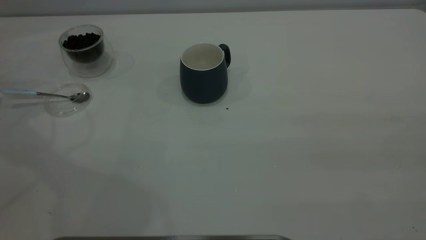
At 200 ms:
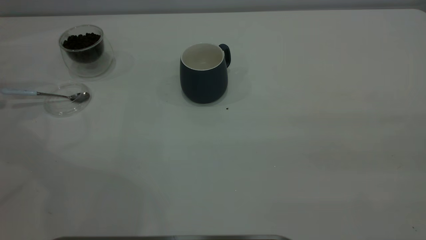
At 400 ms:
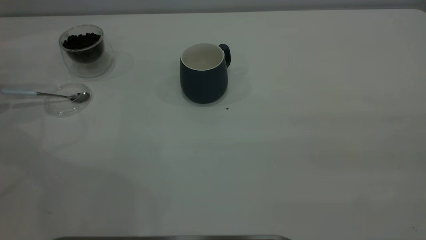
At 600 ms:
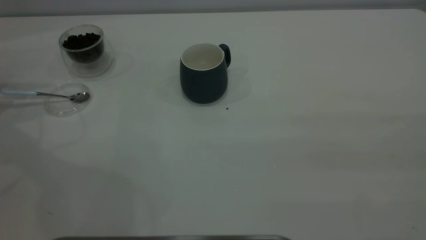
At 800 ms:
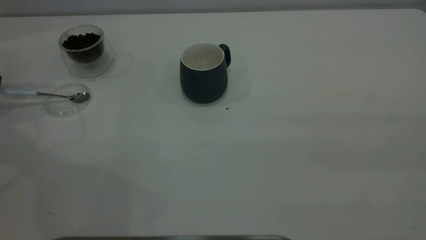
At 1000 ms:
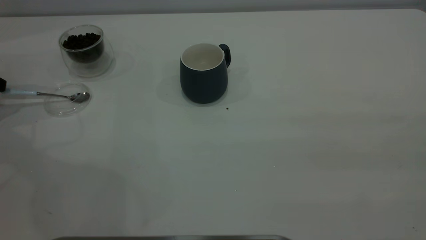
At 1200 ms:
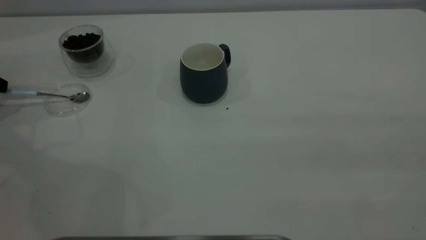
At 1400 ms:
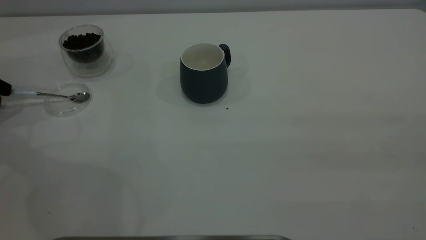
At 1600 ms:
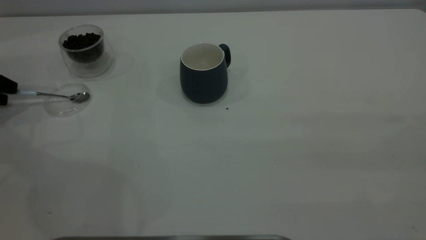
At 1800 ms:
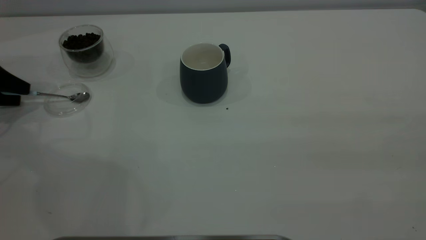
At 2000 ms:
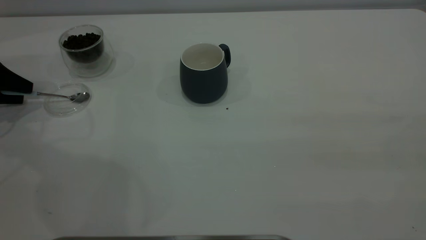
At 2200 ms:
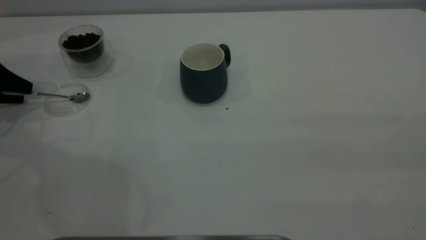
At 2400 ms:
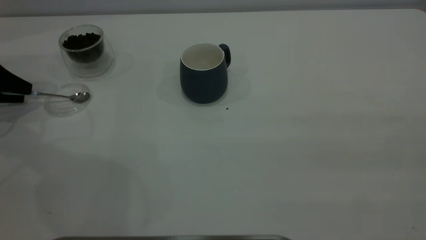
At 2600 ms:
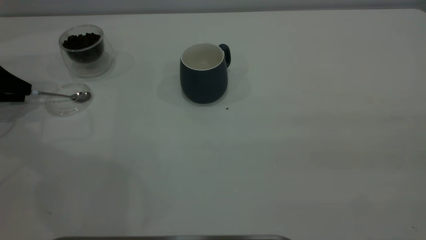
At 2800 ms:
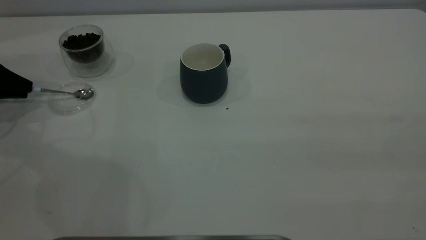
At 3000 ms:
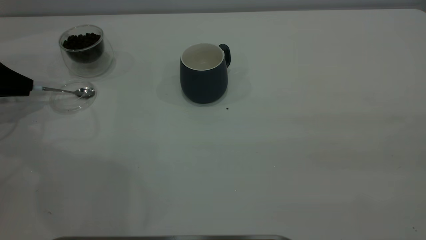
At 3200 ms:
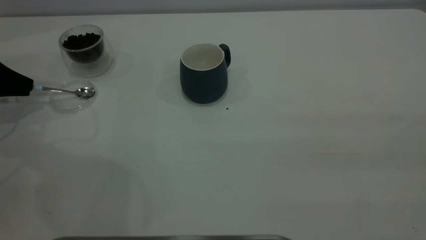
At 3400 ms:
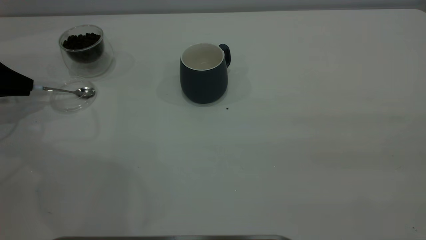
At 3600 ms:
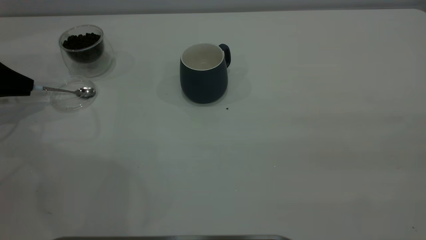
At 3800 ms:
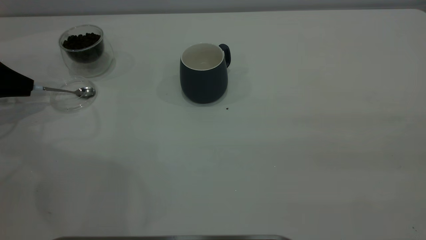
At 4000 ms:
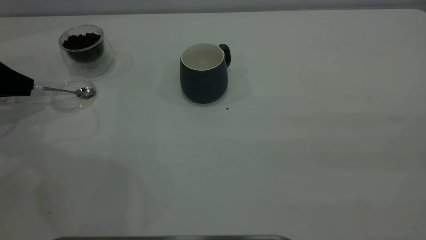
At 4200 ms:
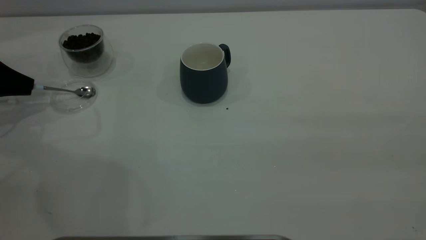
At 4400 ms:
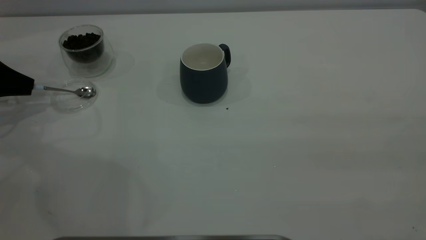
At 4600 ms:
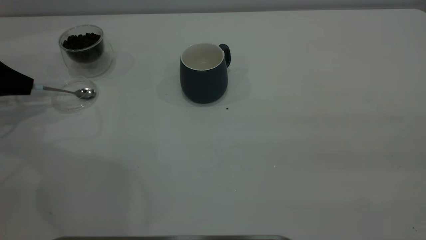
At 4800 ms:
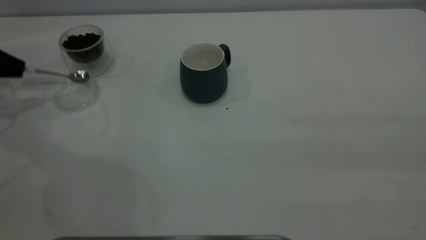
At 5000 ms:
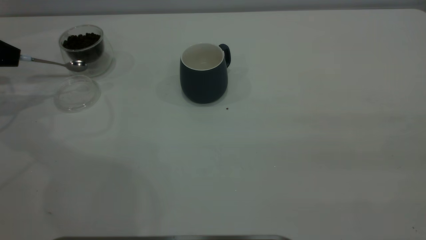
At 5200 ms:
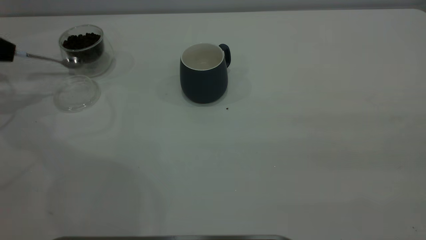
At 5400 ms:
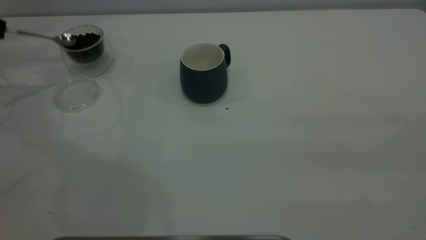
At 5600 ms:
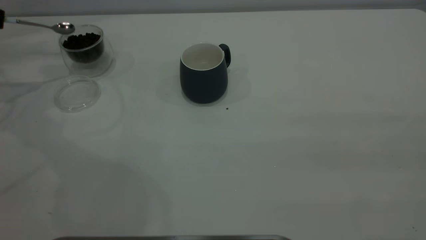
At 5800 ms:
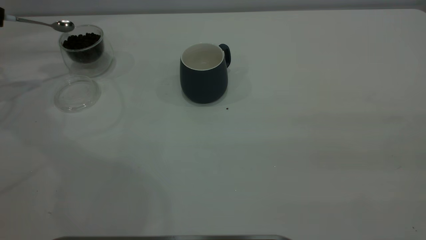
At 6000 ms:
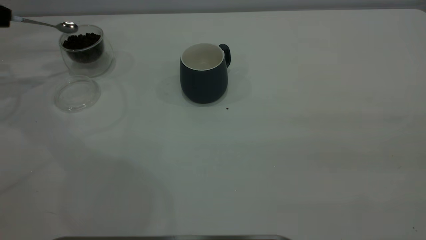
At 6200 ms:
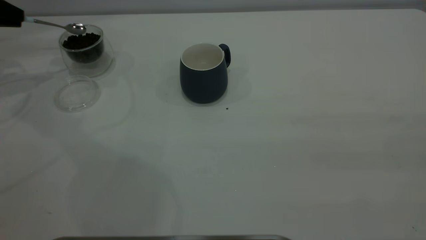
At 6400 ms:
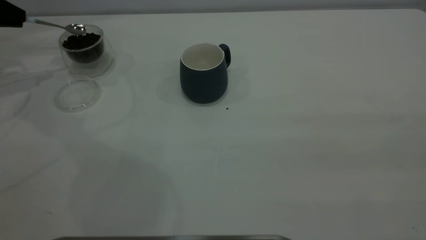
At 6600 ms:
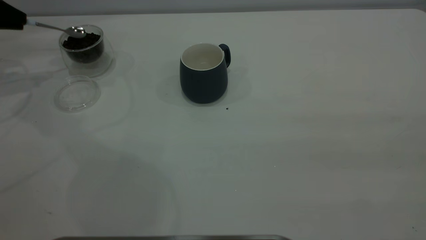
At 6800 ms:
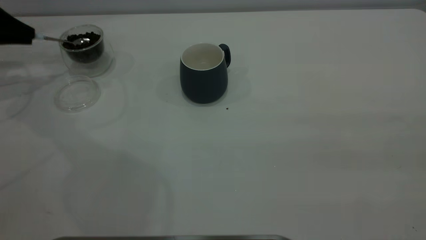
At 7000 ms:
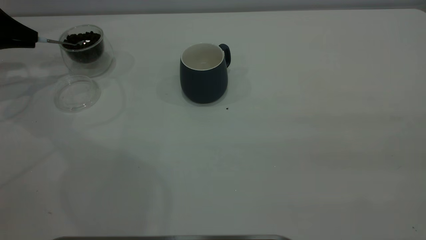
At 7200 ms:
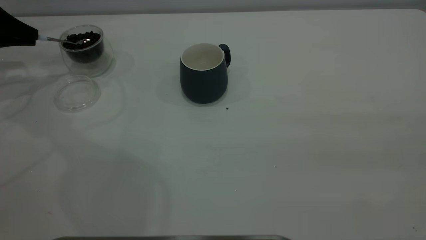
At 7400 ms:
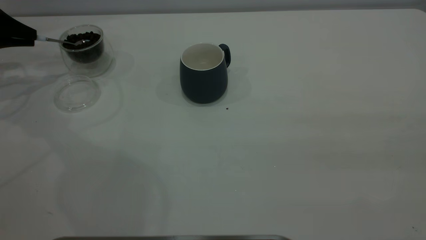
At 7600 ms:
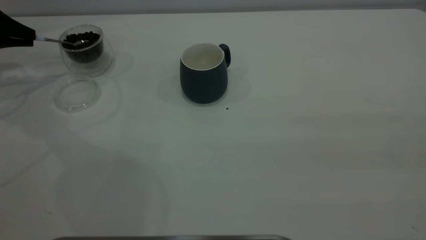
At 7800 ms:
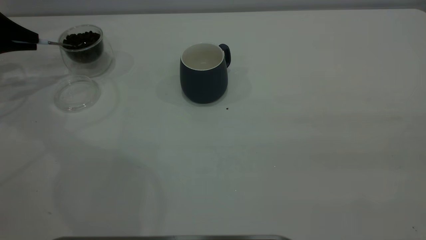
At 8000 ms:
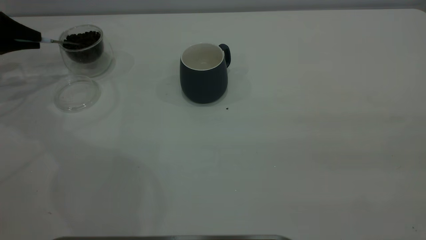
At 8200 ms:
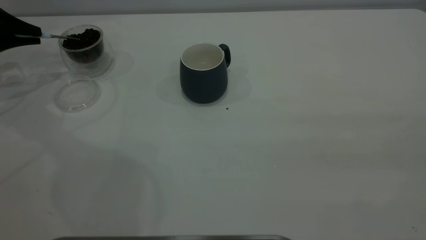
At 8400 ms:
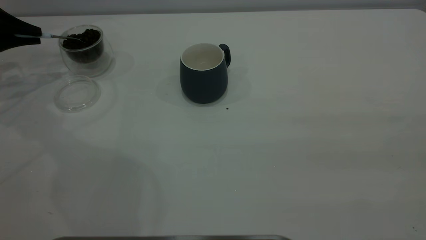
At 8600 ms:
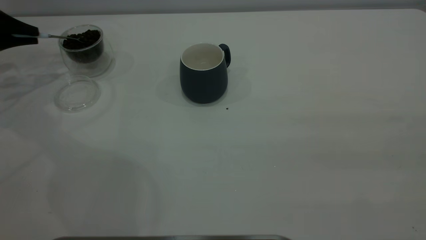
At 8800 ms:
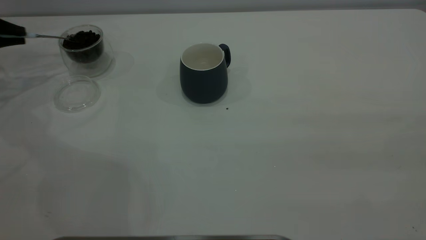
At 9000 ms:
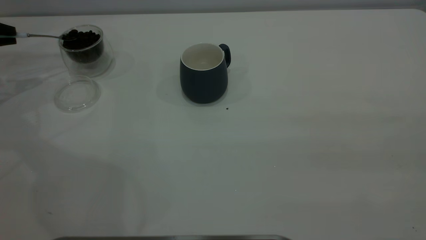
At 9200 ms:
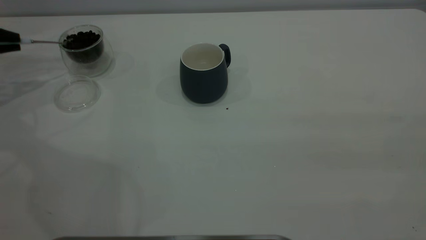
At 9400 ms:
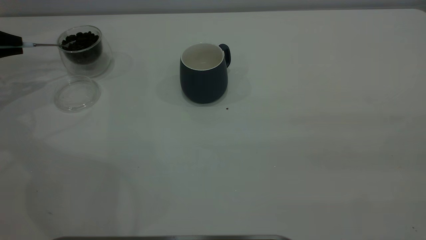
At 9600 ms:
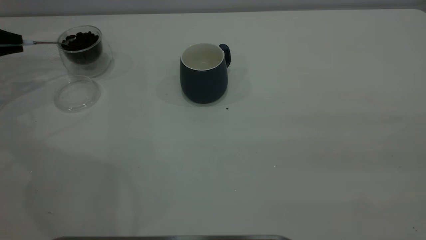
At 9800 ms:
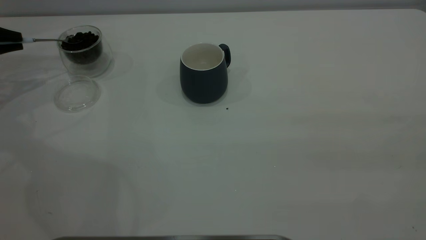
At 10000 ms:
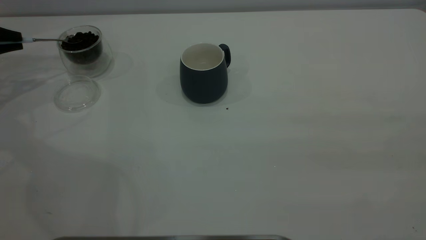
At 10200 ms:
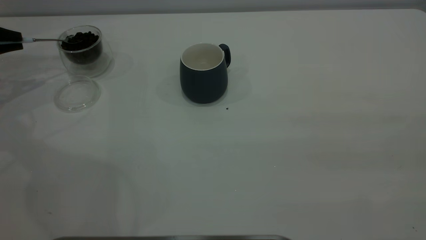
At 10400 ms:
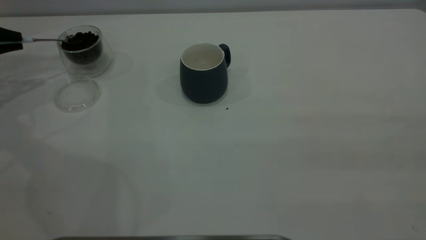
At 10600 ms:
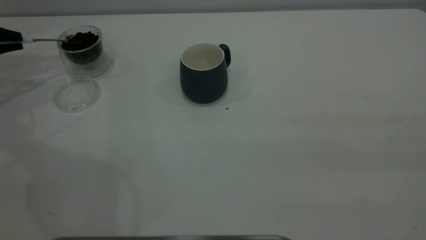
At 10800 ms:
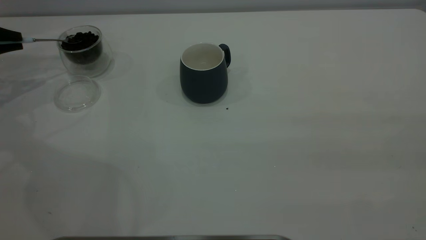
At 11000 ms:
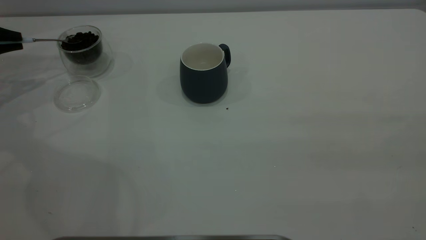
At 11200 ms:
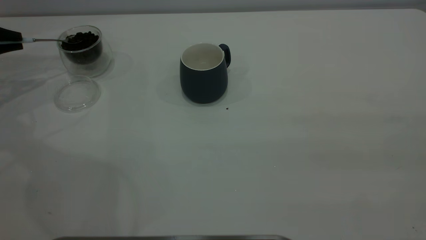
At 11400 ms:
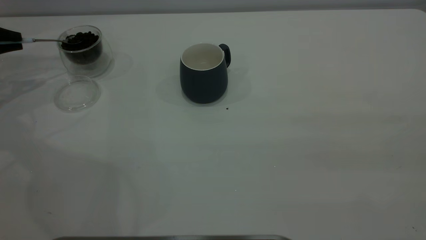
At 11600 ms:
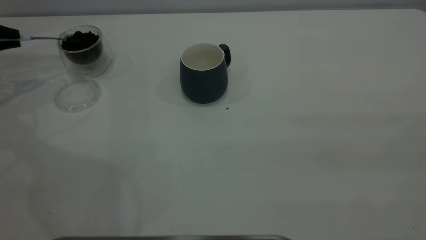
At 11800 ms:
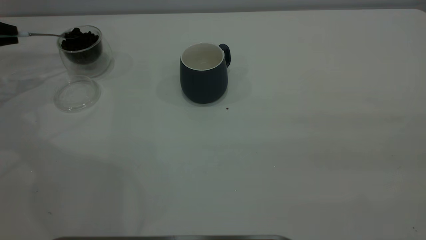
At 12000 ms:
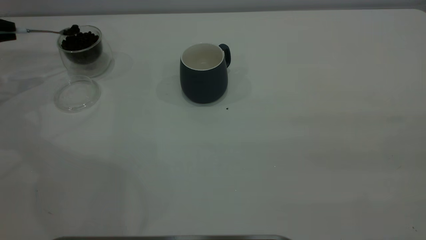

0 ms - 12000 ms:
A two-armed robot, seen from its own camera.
Task of the whole recording: the right gripper place the grey cup in the center of the table, the left gripper take the blue spoon from the cup lid and scoop out the coffee beans from the coffee cup and put them into the grey cup, the left gripper put the spoon back into the cup lid.
Step, 0 ms - 5400 ms: Pick up the spoon.
1600 ms - 3000 ms: The left gripper closes its fingers.
4400 ms - 6000 ms: The left gripper goes approximately 10 cm upward and forward.
6000 ms - 7600 ms: The grippers make only small movements.

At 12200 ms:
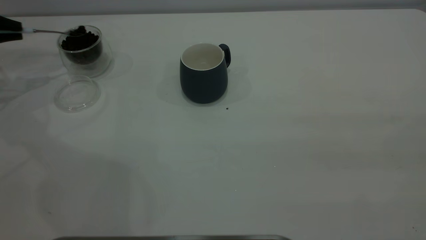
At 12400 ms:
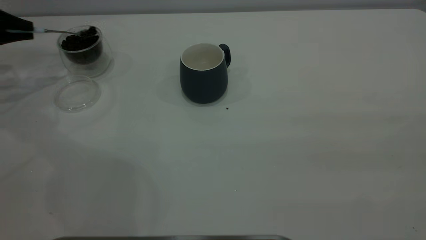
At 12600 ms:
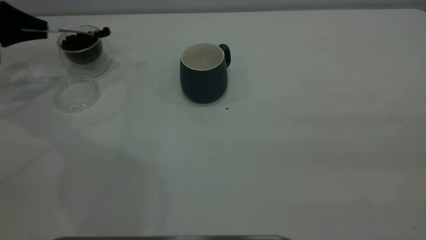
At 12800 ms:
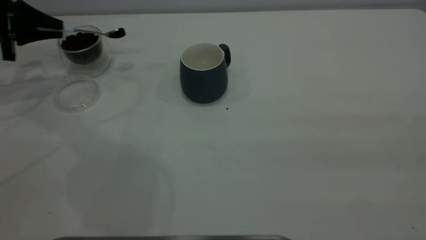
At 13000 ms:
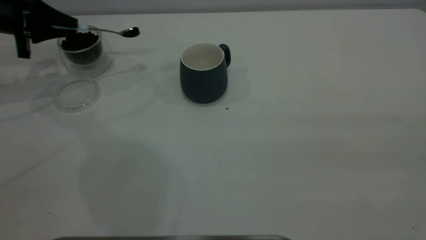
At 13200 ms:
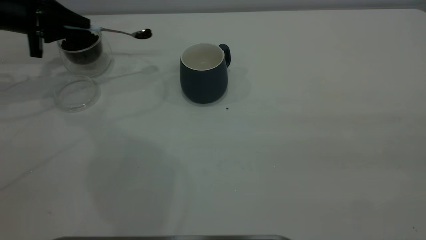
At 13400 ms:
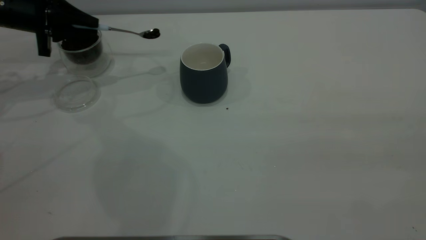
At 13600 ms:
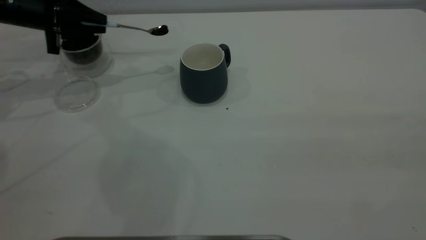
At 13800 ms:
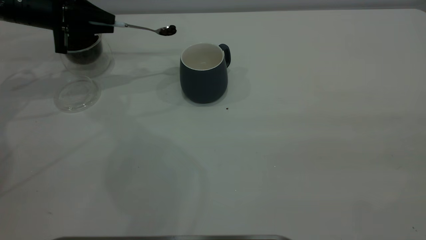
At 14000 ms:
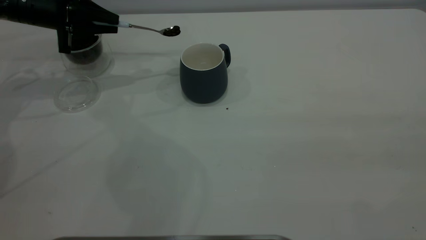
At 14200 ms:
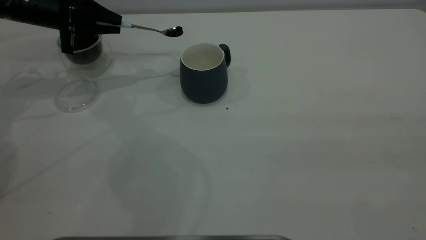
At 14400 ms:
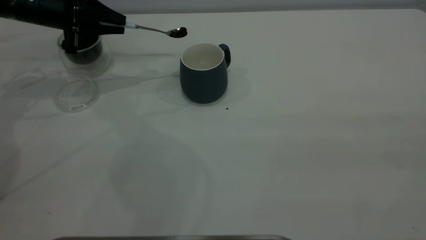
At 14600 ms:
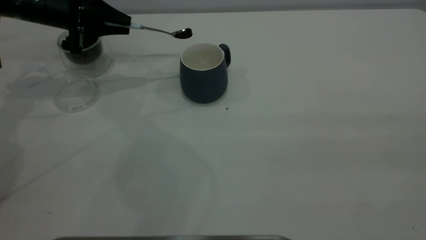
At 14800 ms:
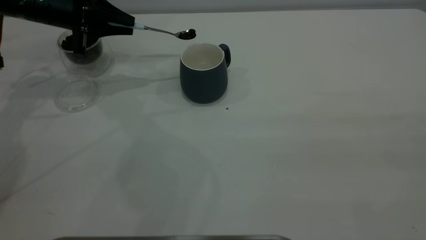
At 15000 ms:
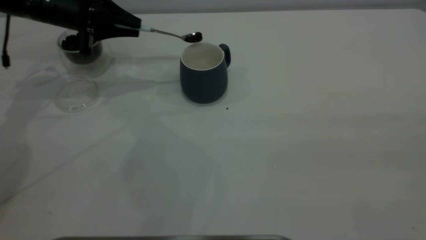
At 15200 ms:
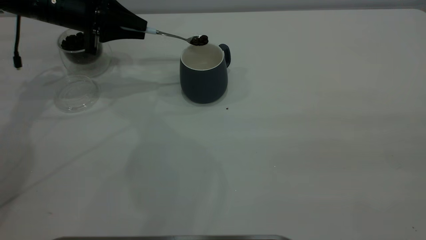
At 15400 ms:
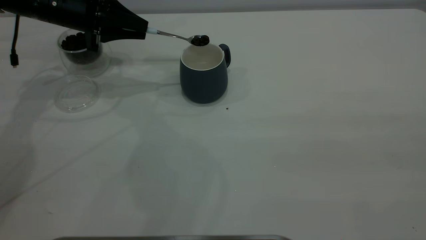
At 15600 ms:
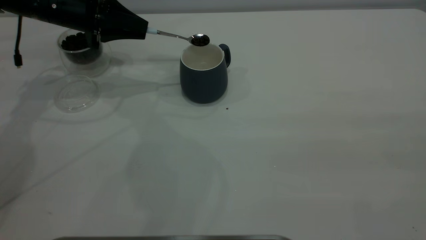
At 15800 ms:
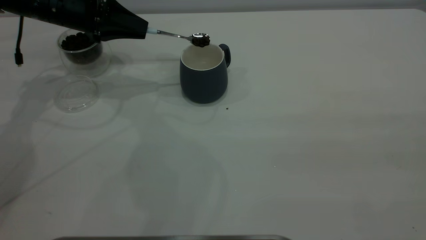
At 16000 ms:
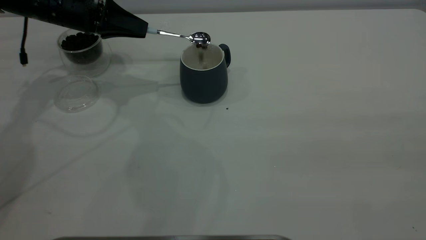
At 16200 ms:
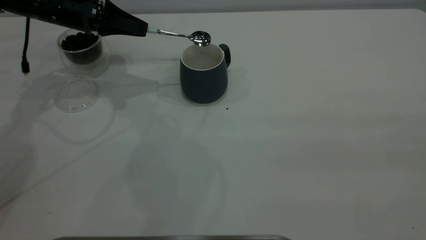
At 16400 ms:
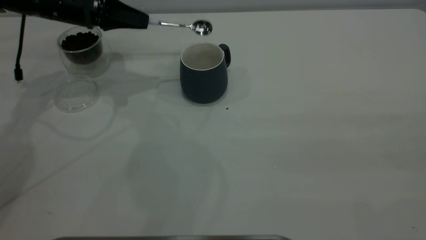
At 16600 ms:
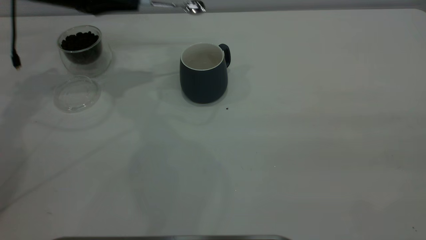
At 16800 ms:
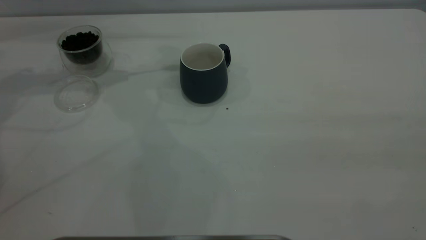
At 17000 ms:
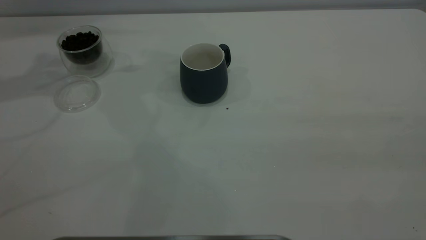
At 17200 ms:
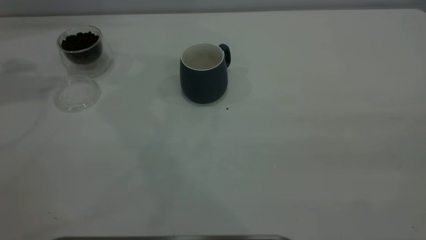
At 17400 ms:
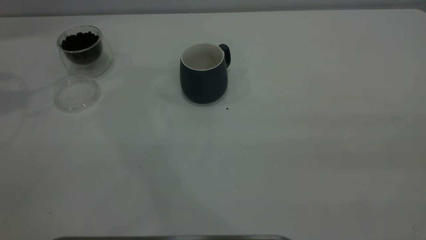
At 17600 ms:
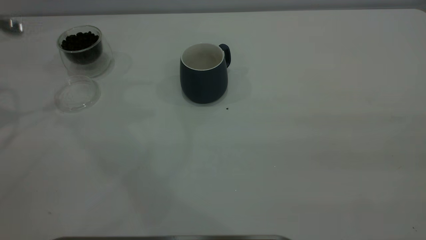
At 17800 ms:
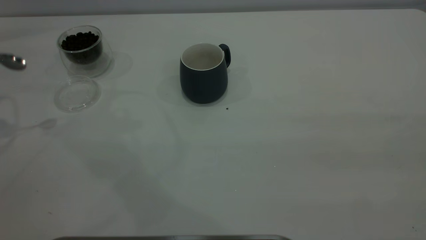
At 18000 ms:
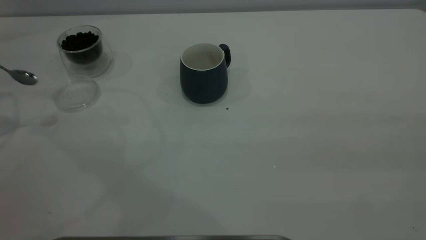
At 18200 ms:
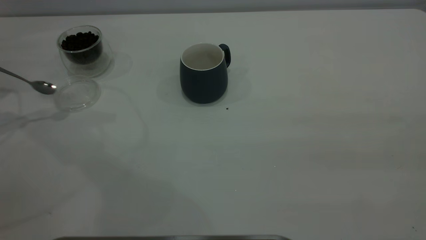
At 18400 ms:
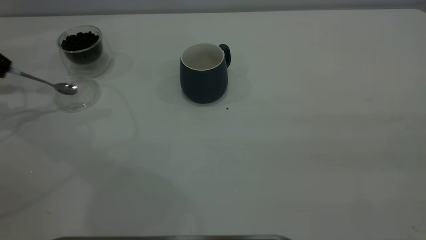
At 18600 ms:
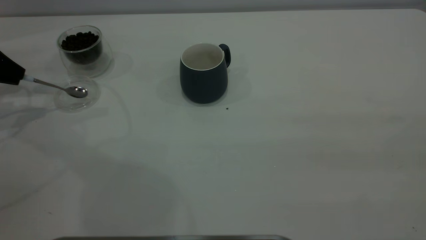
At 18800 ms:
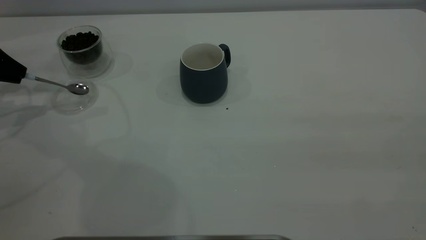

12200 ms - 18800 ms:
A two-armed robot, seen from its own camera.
Task of the whole recording: the right gripper place the grey cup in the center of the table, the left gripper take the blue spoon from the cup lid and scoop out the coffee beans from the coffee cup and put them into the grey cup, the left gripper put the spoon back into the cup lid.
Step, 12200 ms - 16400 ms: Scoop a spoonful of beans into the cup.
12200 ms - 13800 ms: The left gripper shifts about 15 cm to the right.
13800 ms - 15400 ms: The left gripper shifts roughly 5 cm to the right.
15400 ms - 17200 ms: The left gripper moves upward and to the left, some 25 cm.
17200 ms - 18800 ms: The left gripper heads downward, covering approximately 25 cm.
